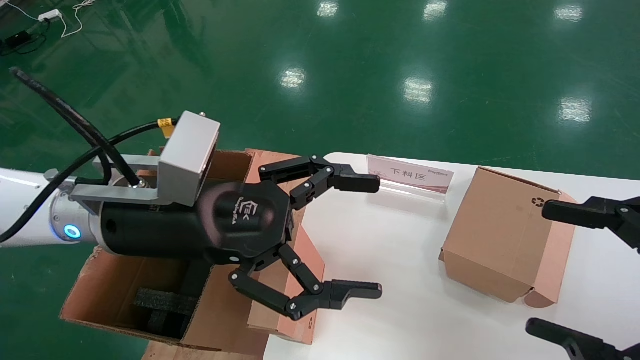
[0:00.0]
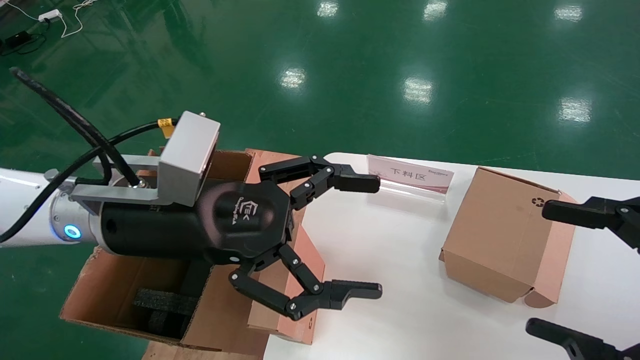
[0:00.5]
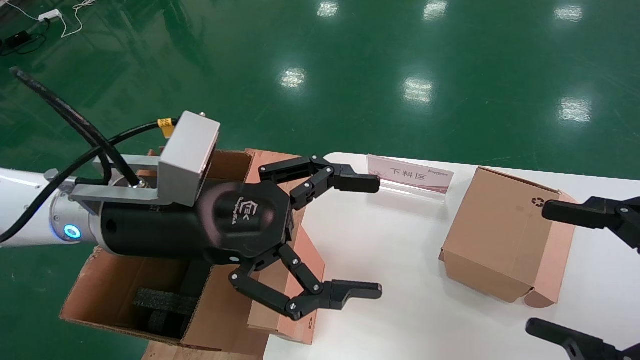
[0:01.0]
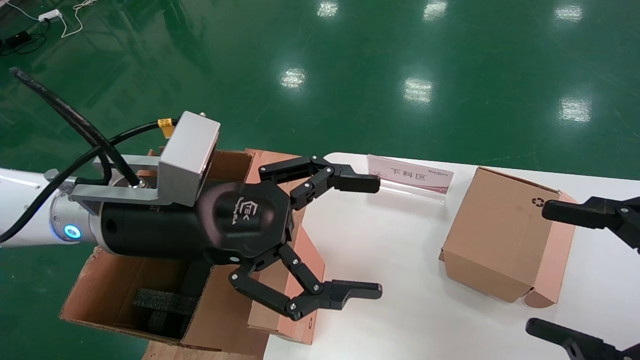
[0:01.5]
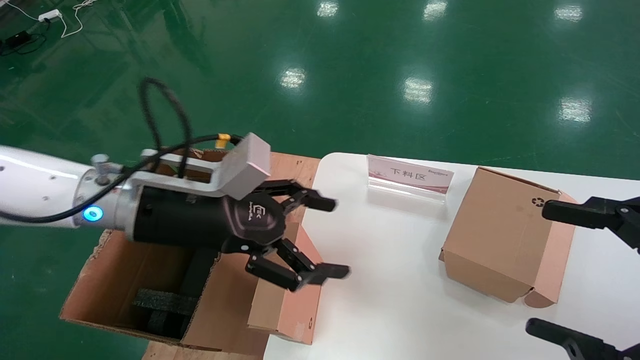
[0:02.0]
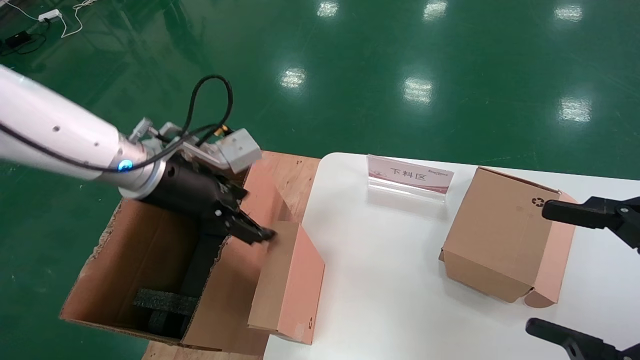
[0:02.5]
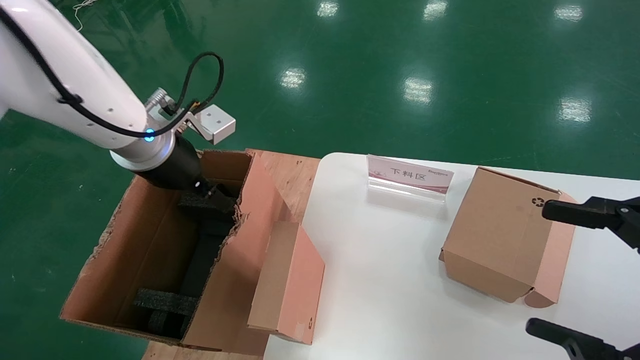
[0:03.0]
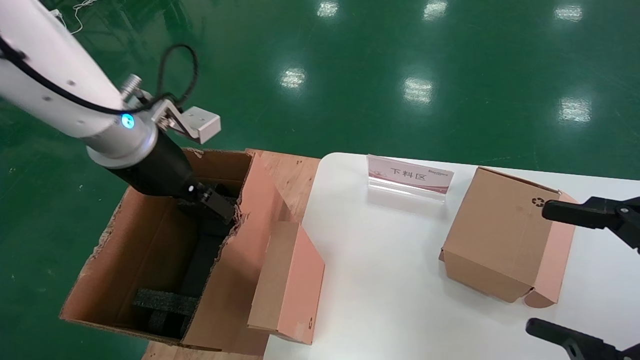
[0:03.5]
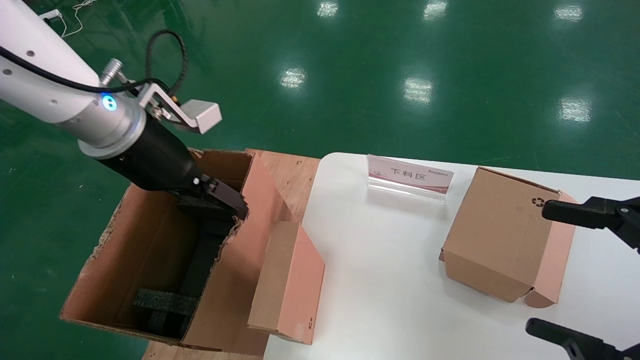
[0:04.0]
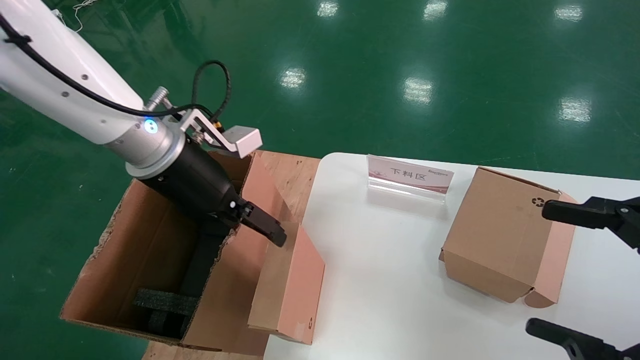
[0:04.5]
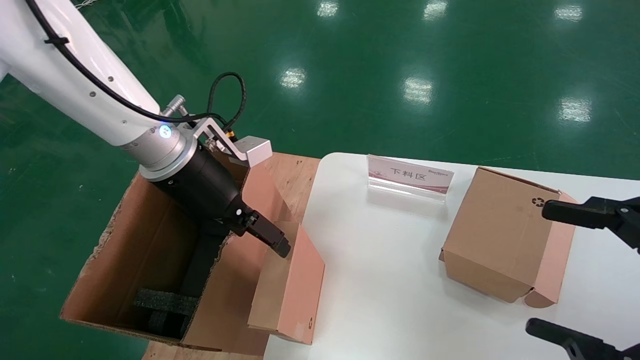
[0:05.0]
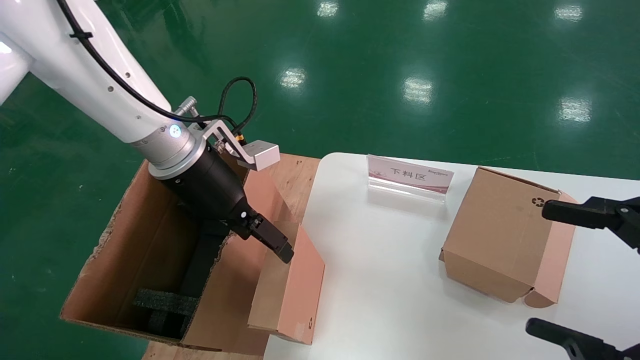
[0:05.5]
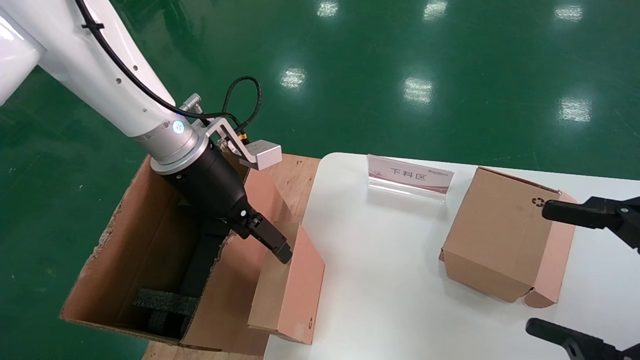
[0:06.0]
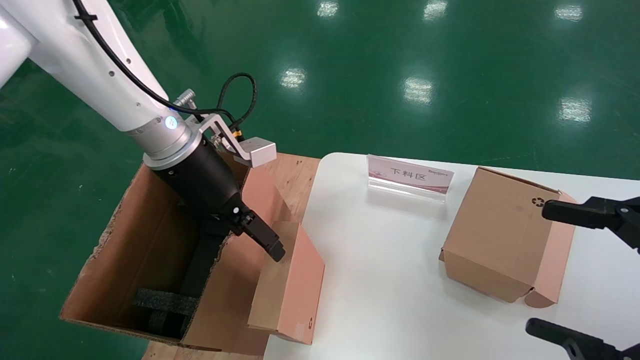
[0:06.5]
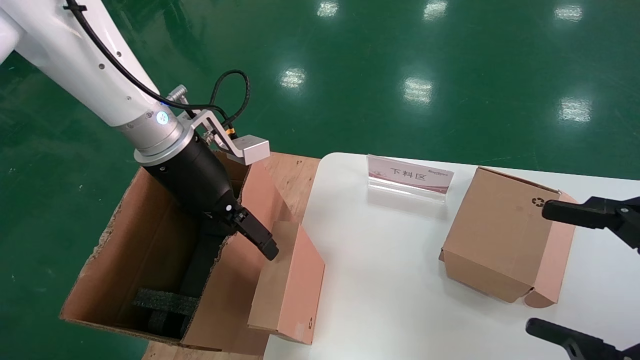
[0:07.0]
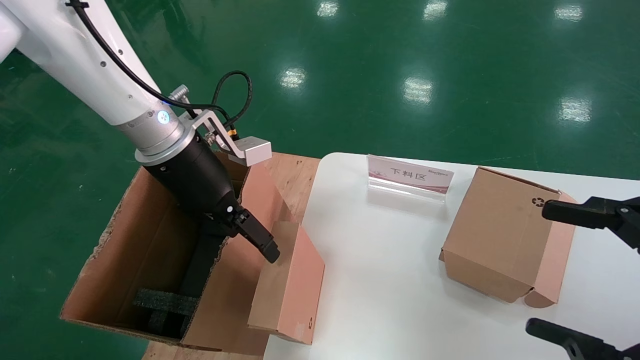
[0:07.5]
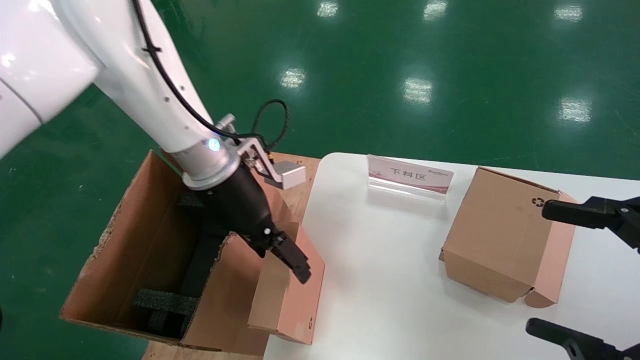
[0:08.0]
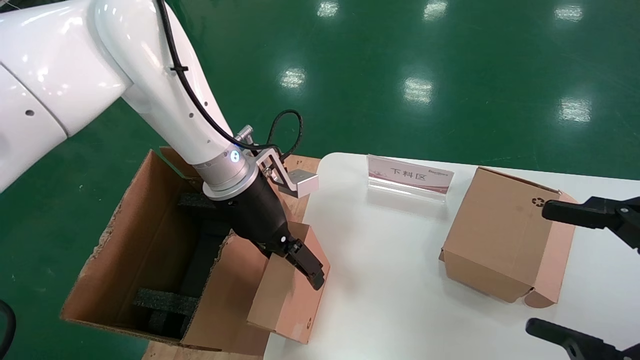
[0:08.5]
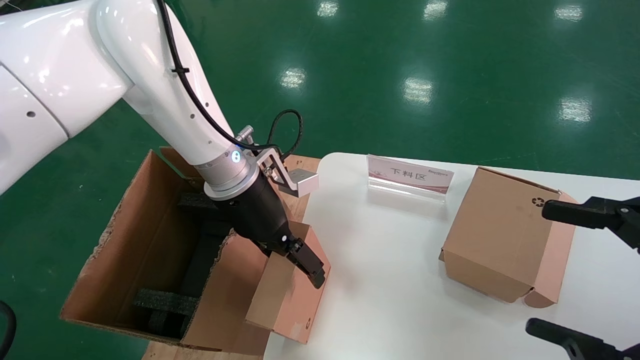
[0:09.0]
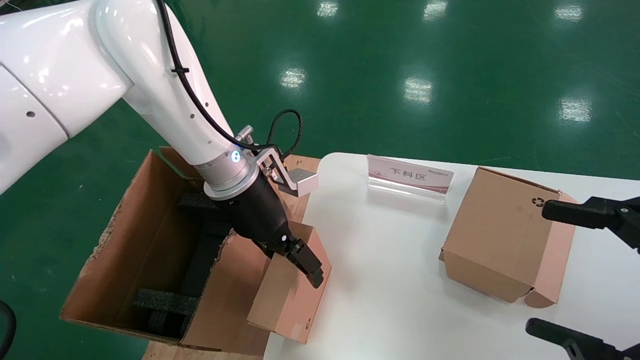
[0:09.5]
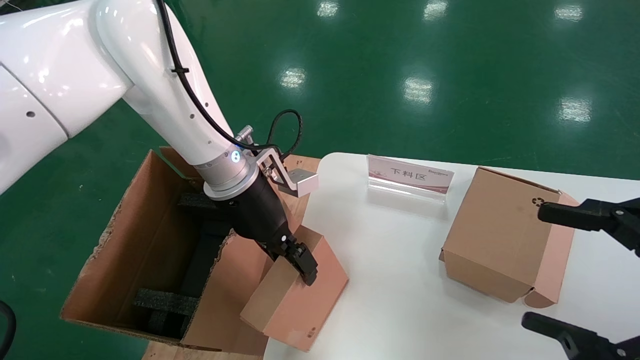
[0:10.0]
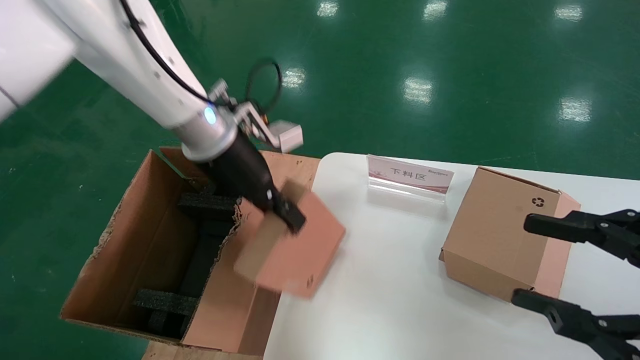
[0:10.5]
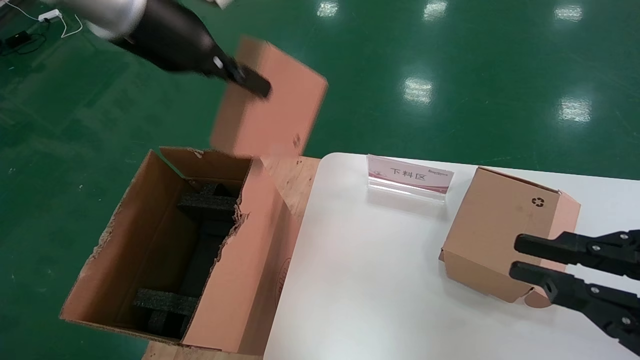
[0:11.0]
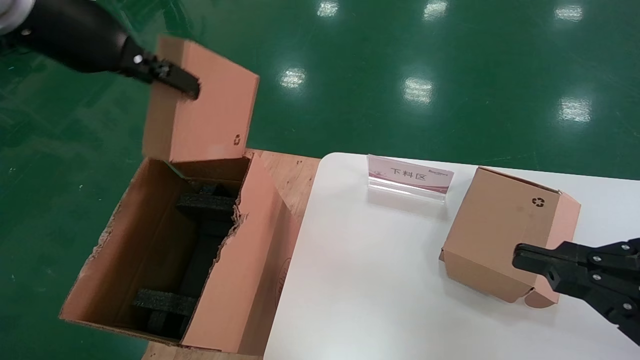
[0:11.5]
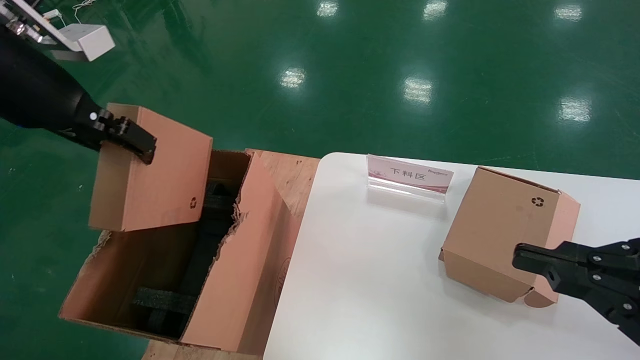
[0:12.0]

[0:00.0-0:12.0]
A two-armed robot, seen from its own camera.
Task of the whole recording: put the box on the table into the big box.
Step, 0:00.0 to 0:10.0: Grasp the paper box.
0:00.0 to 0:02.0: The left gripper changes place by approximately 5 cm.
0:02.0 to 0:04.0: The left gripper shifts about 10 cm upward.
0:04.0 to 0:06.0: The left gripper changes place by about 5 cm.
0:06.0 to 0:08.0: The grippers make only small movements.
0:08.0 to 0:10.0: The left gripper closes up.
0:10.0 to 0:12.0: The right gripper closes up. Meanwhile the left gripper goes about 25 cm upward, to the left and backward, and closes.

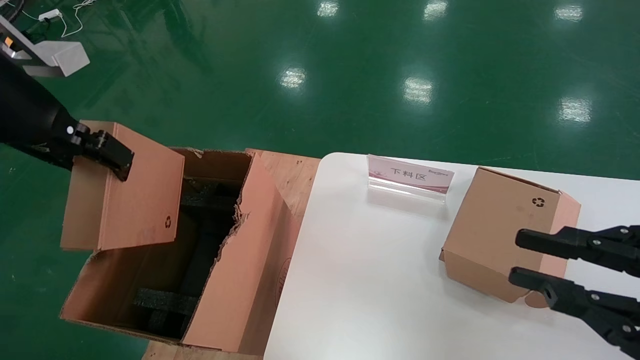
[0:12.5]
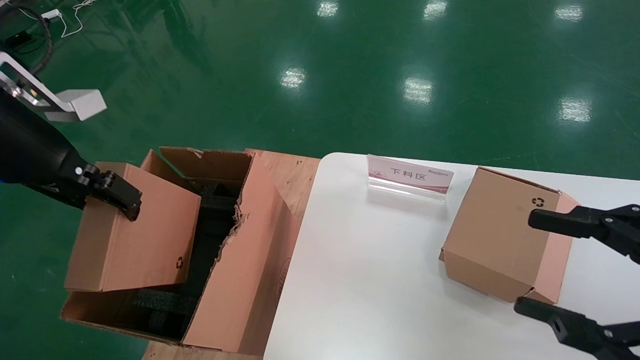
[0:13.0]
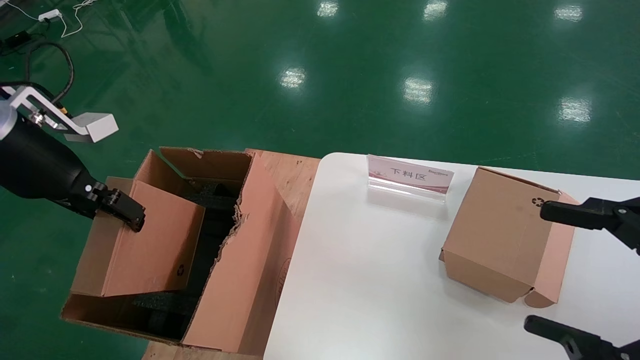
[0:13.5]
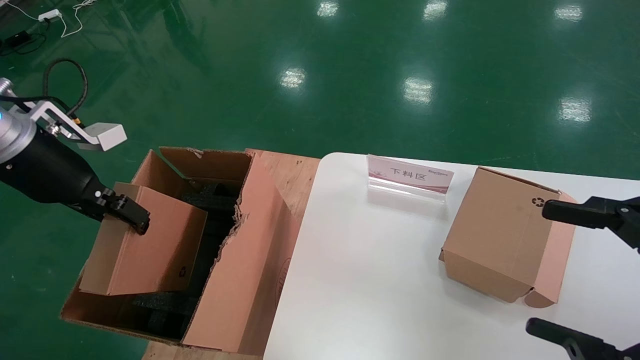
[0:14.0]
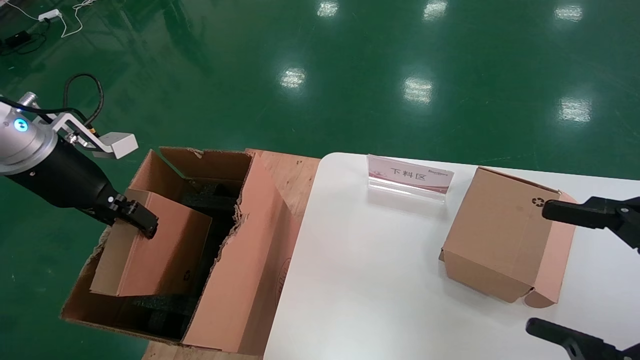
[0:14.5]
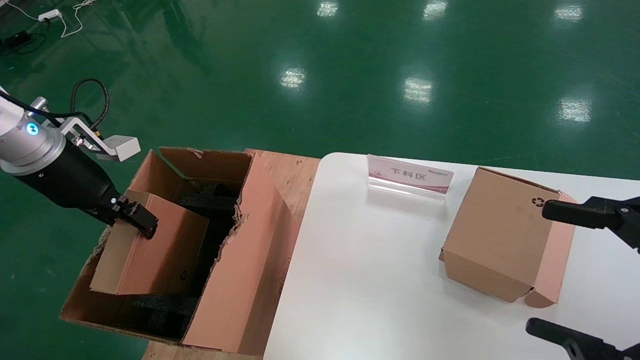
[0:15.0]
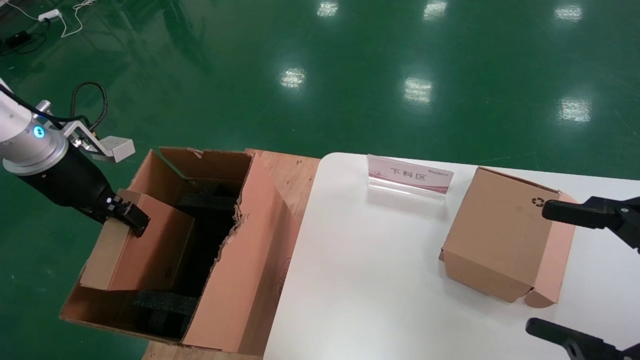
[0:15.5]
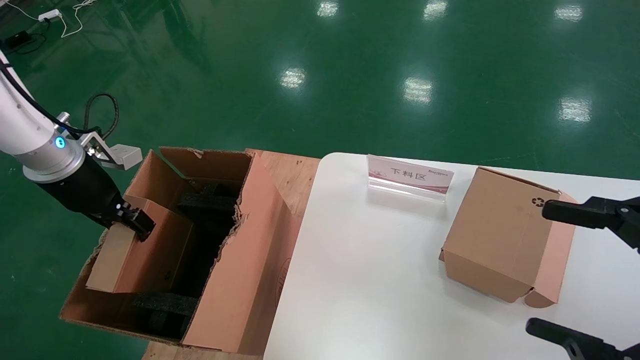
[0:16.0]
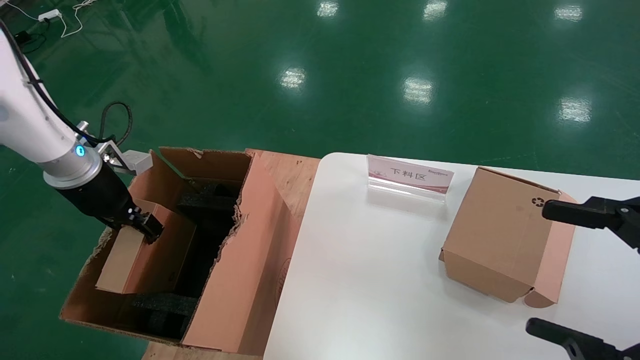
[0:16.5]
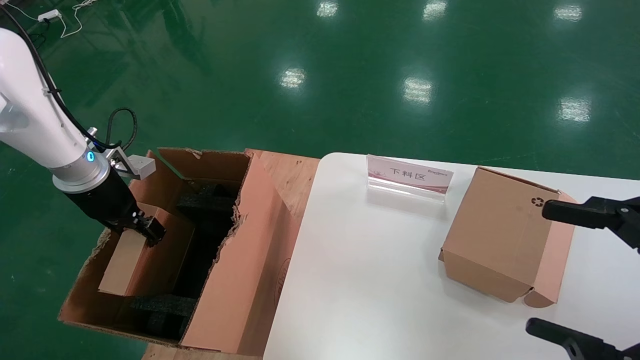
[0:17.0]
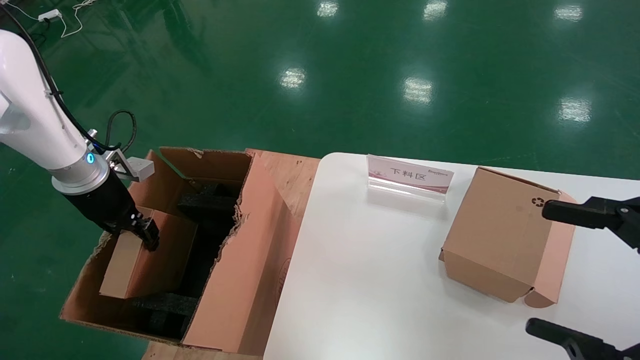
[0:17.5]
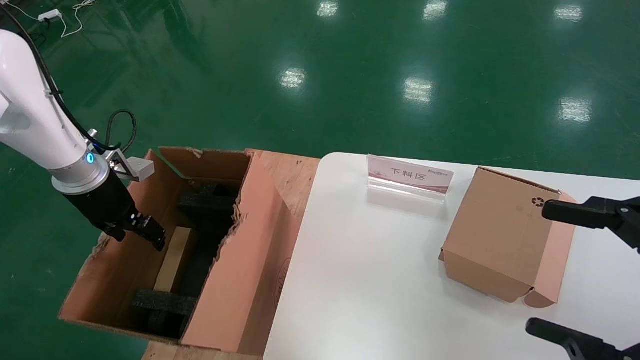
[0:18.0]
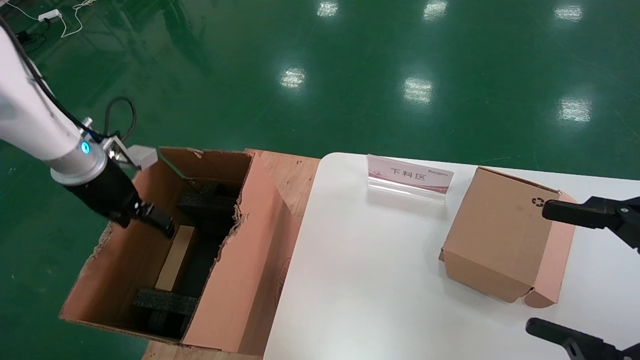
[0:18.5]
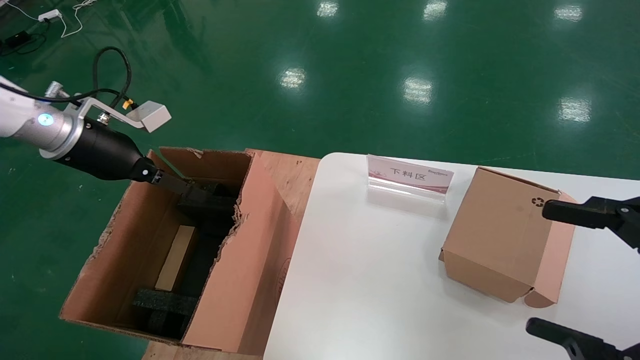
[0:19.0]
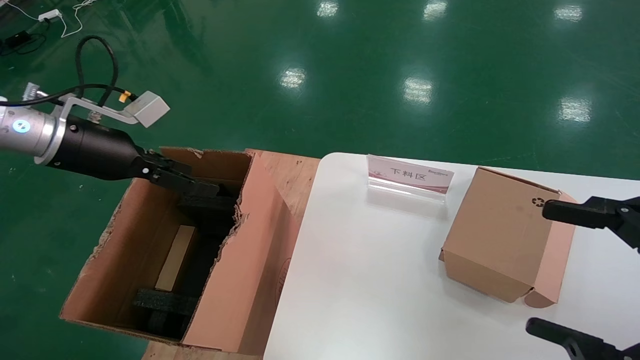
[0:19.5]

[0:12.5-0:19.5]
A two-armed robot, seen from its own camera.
Task of the whole recording: put the box on the table into the big box.
Step, 0:12.5 to 0:17.5: Place the paper box in the another big box.
0:12.5 to 0:14.5: The right gripper opens up. The left gripper is displaced downward, forward and to the left by some 15 cm.
0:14.5 to 0:16.0: The left gripper moves roughly 5 cm.
0:16.0 to 0:17.5: The grippers stay close to where they were, moving slightly.
0:17.5 to 0:19.5: The left gripper moves upward, roughly 5 cm, and opens its fingers.
